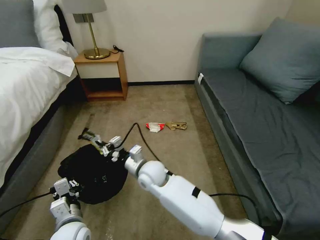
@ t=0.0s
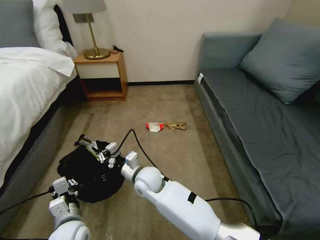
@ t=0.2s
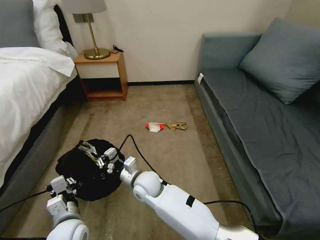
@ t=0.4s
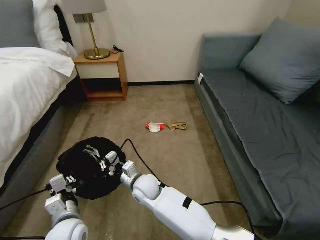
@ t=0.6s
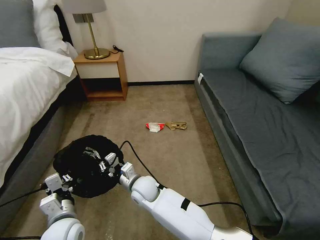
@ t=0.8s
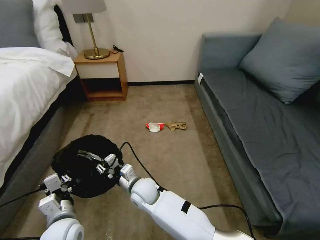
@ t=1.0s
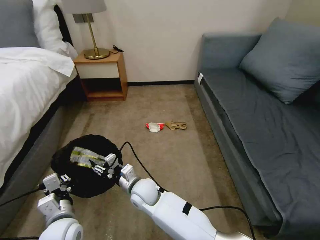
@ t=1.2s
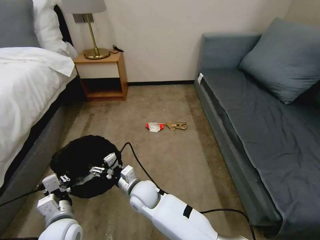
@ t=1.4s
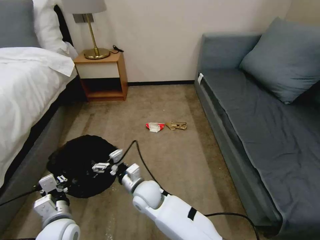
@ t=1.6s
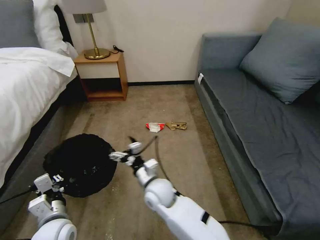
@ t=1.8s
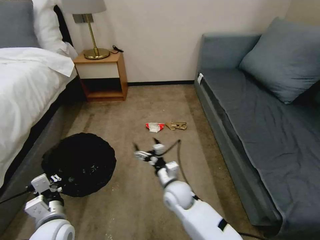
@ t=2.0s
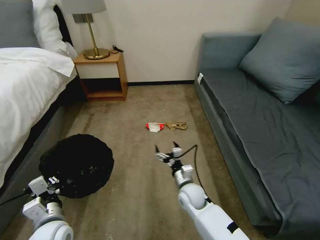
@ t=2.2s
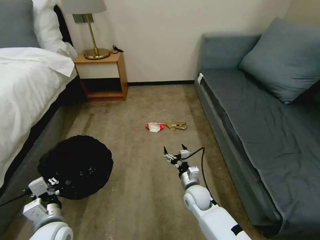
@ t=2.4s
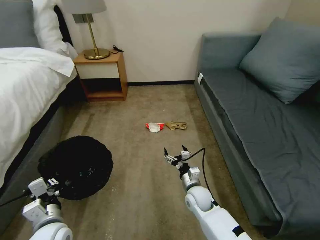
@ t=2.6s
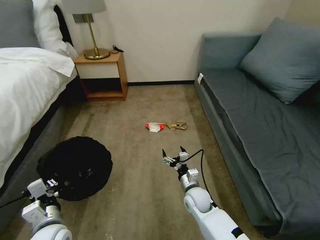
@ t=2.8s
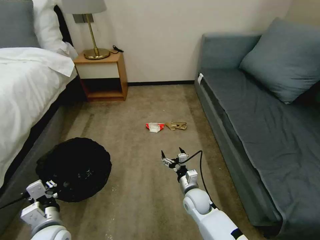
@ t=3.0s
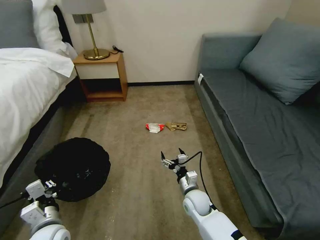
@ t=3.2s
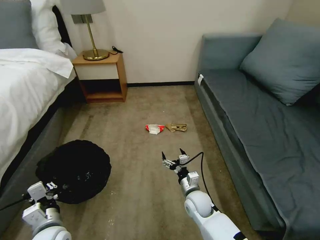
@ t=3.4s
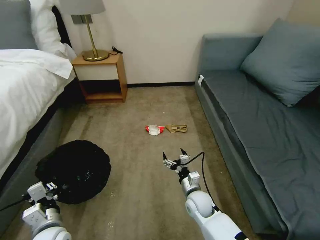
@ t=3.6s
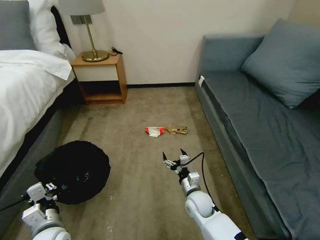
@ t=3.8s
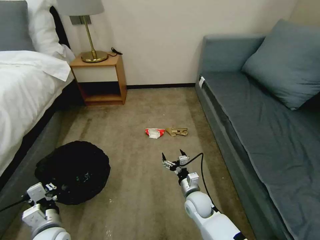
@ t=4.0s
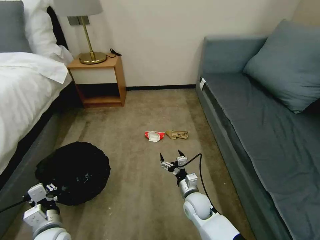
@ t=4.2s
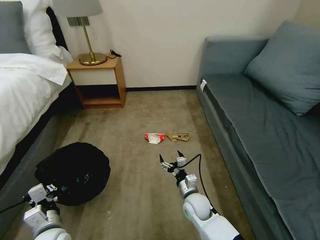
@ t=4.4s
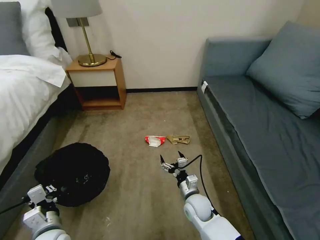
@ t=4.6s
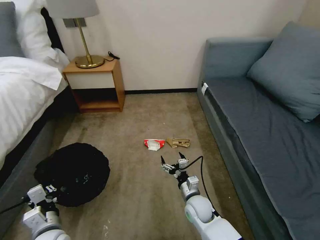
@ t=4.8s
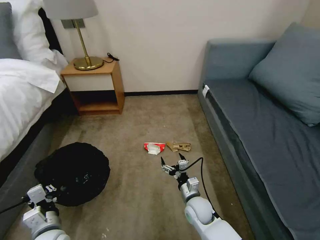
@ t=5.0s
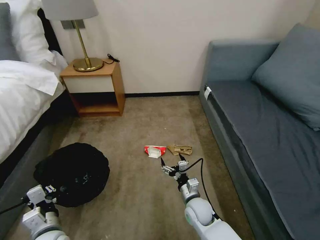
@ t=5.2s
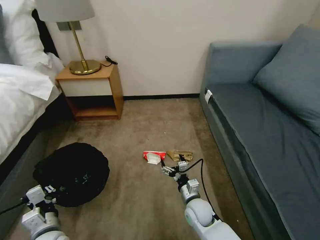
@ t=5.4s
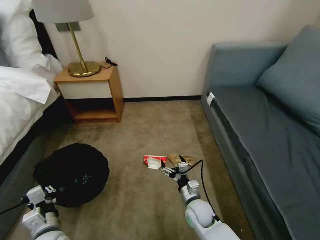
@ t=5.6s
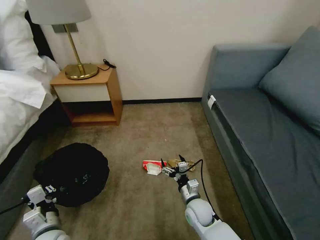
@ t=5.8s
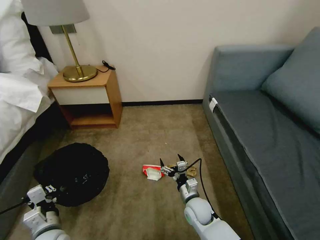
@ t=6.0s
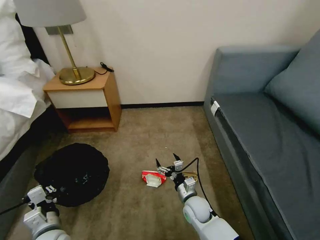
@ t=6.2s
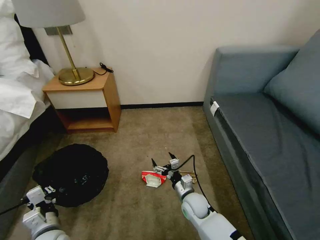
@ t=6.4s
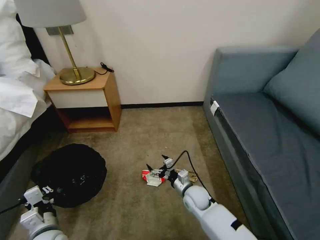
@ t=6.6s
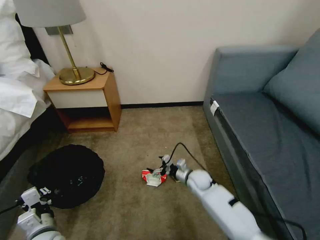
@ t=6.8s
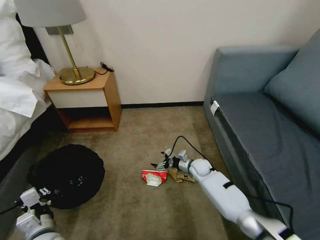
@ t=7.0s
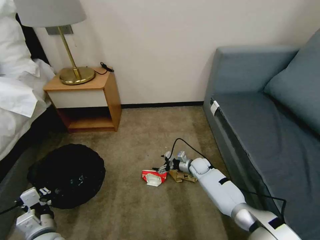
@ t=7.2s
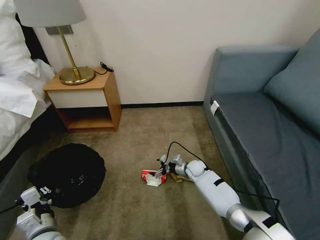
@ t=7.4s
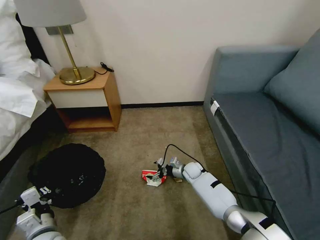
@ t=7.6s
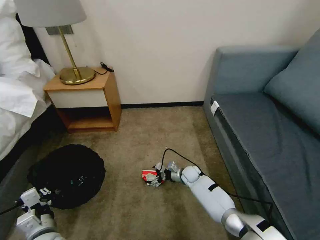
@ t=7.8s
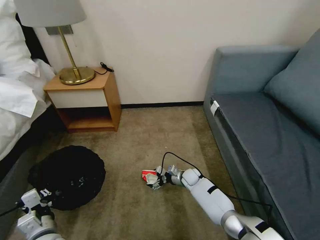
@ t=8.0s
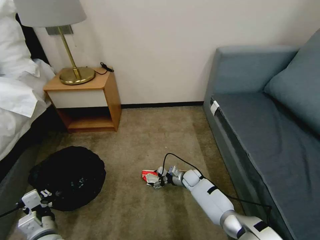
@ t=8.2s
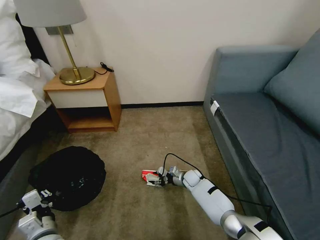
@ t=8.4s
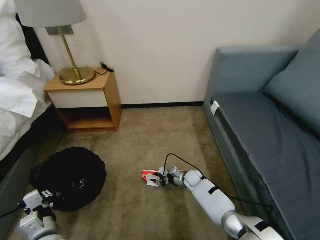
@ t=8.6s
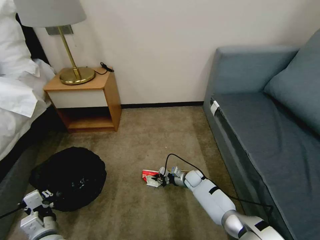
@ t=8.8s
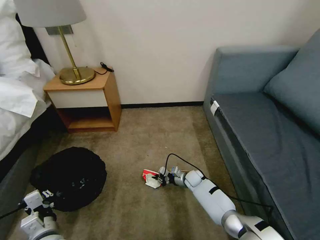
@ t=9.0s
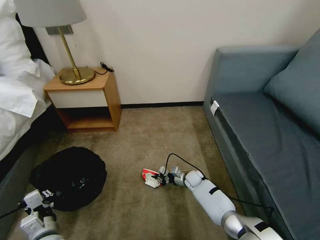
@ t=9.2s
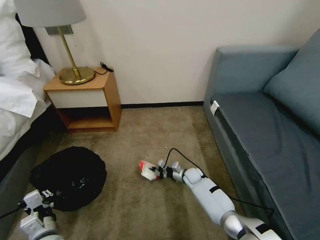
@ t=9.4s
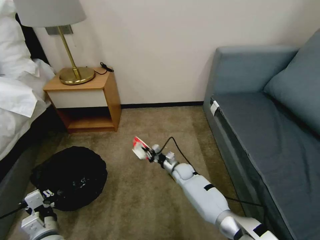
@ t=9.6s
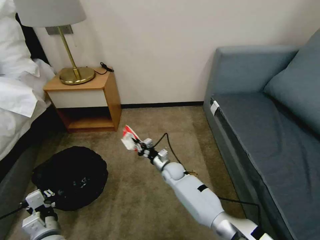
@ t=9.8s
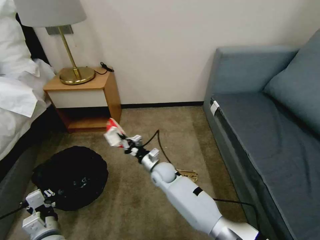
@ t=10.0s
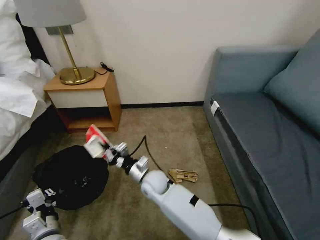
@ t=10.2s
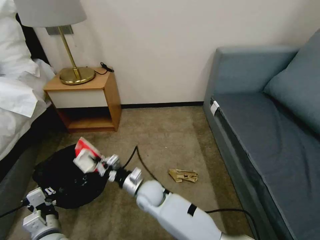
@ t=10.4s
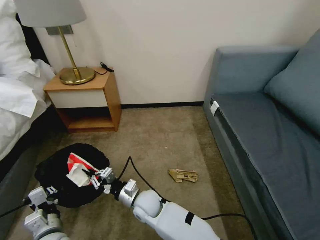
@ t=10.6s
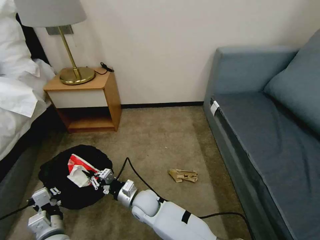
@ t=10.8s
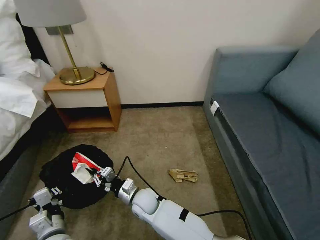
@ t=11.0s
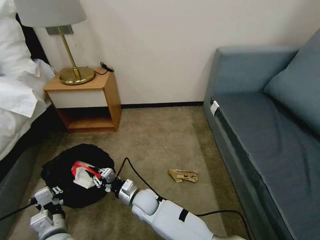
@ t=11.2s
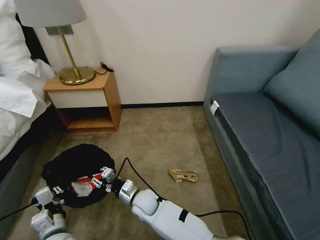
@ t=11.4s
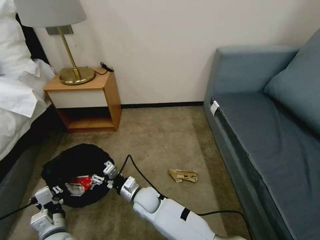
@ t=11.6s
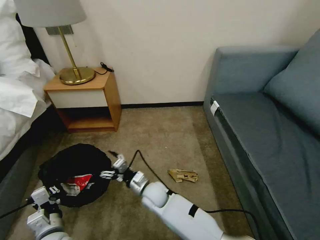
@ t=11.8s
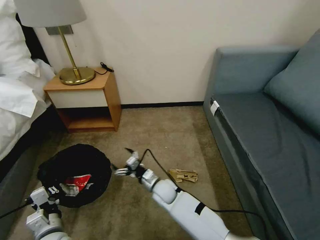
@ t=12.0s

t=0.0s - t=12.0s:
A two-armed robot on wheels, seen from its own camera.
Task of the whole recording: Pick up the trash bin, then pick up the garbage on the floor and place it into the trash bin.
t=0.0s - t=1.6s: The right gripper heads backward, covering roughly 5 cm, and opens its fingers.
t=1.6s - t=3.0s: The right gripper heads to the right and downward, covering about 20 cm.
t=3.0s - t=4.4s: The grippers stay close to where they were, moving slightly.
t=6.0s - t=7.6s: The right gripper is displaced forward by approximately 20 cm.
t=7.6s - t=9.0s: The right gripper closes its fingers.
t=9.0s - t=10.4s: The right gripper heads to the left, upward and backward, covering about 30 cm.
t=10.4s - t=12.0s: The right gripper goes approximately 10 cm to the right and downward, and opens its fingers.

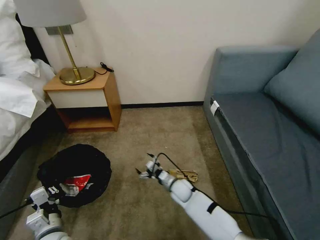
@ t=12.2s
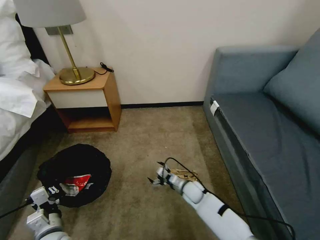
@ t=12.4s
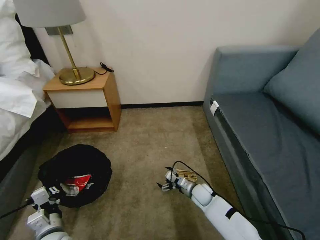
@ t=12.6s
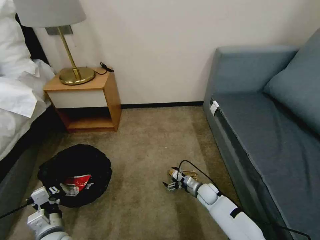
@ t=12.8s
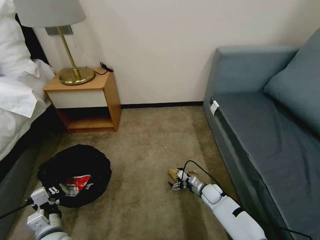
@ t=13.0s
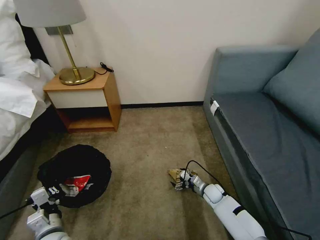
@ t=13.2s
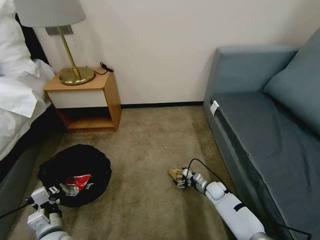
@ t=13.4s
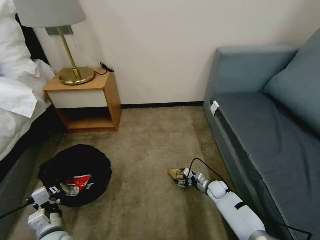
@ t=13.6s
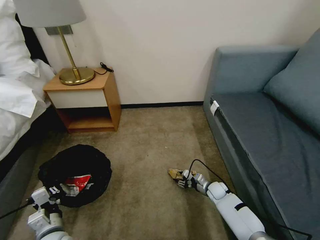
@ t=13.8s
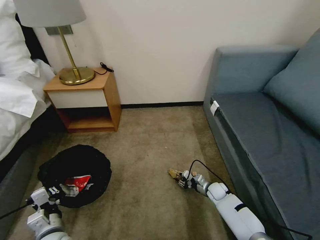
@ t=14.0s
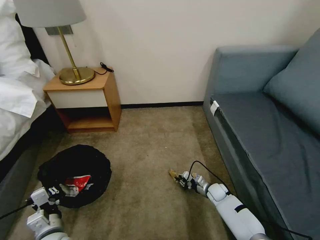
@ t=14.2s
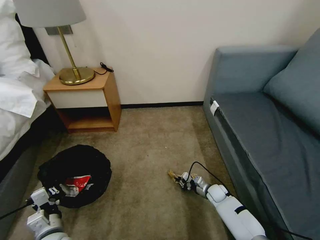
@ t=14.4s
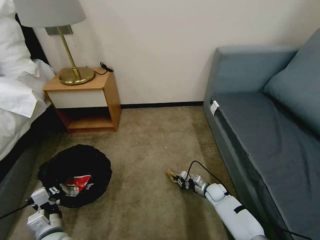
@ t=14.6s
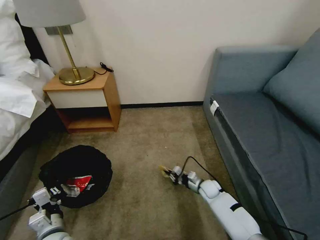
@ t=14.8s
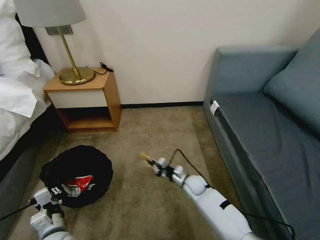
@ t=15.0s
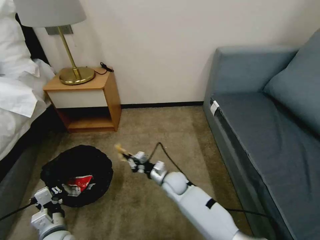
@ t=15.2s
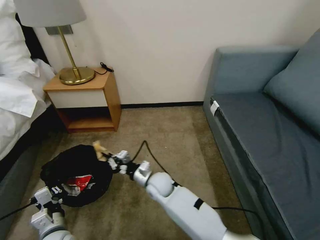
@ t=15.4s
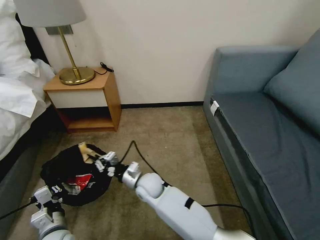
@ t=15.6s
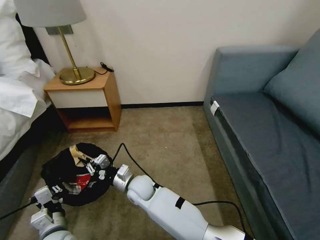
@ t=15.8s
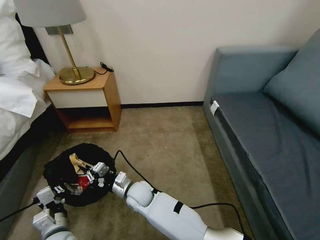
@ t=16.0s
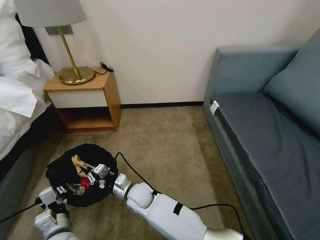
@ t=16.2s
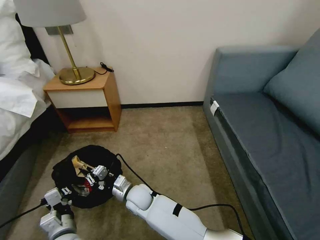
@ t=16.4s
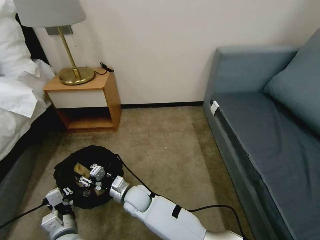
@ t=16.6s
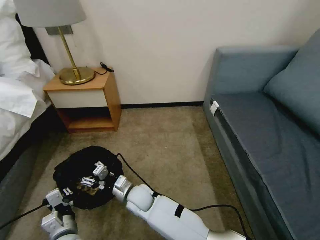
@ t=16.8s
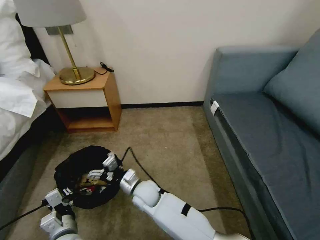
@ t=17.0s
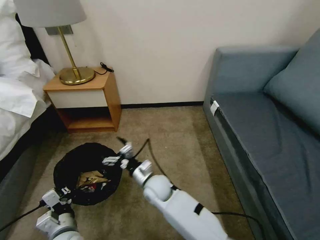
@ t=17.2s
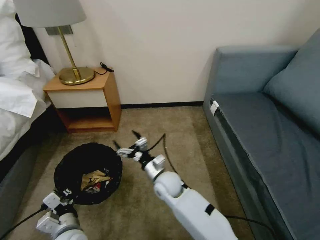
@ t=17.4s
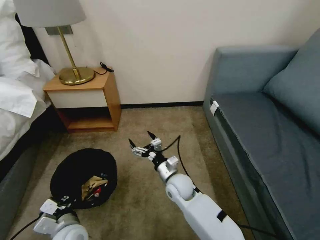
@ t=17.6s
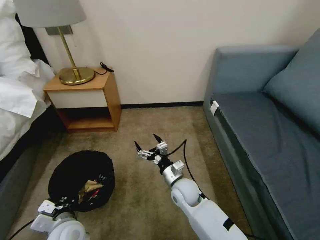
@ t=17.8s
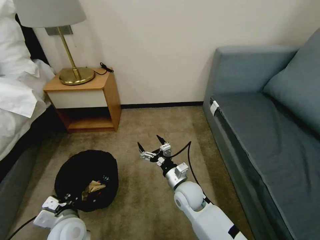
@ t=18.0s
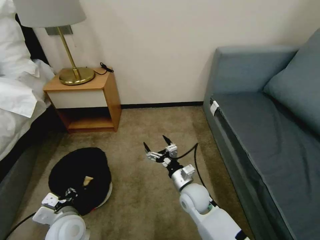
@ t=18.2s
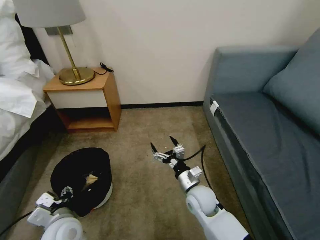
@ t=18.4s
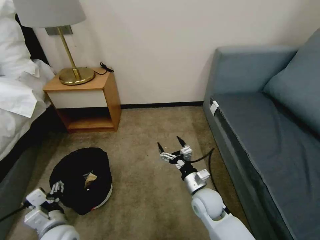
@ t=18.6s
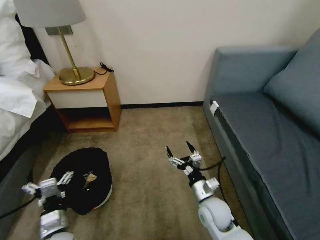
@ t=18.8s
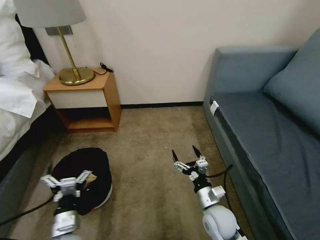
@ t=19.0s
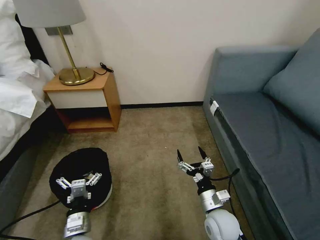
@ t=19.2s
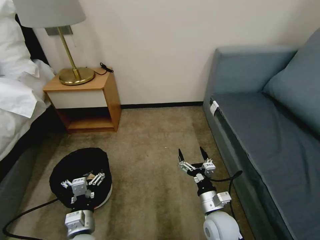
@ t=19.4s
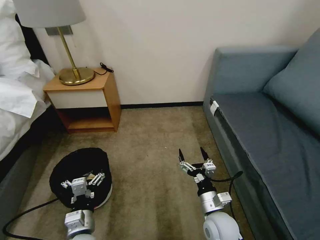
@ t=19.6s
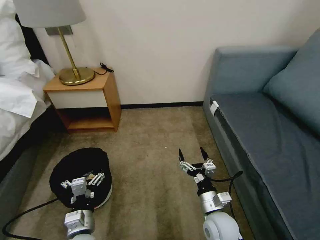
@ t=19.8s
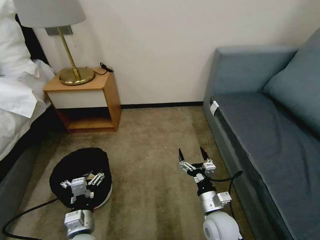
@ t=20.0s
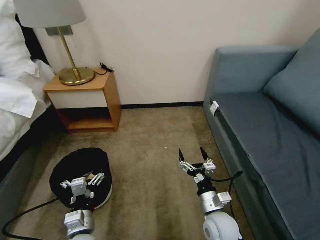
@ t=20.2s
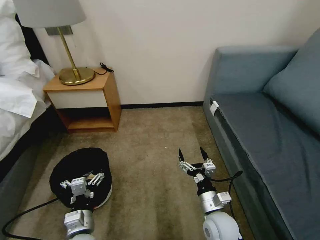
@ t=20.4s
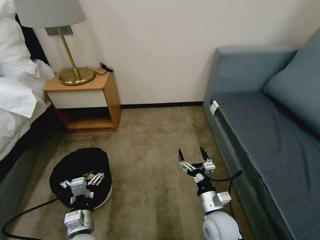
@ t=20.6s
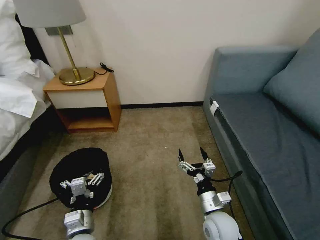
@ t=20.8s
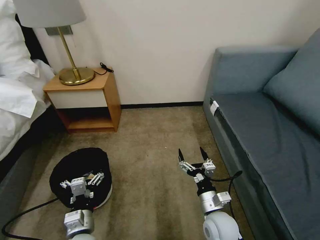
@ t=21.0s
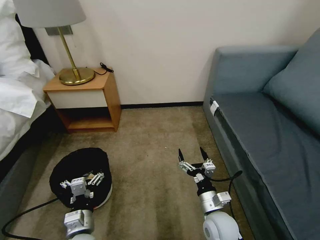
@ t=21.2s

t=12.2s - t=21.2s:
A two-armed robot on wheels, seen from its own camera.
Task of the whole recording: Pick up the trash bin, then pick up the garbage on the floor and place it into the trash bin.
t=12.2s - t=13.8s: The right gripper moves to the right, some 20 cm, and closes.
t=13.8s - t=15.2s: The right gripper goes roughly 25 cm to the left and upward, and closes its fingers.
t=15.2s - t=16.6s: The right gripper shifts some 15 cm to the left and backward.
t=16.6s - t=18.2s: The left gripper moves some 5 cm. The right gripper travels to the right by some 20 cm, and opens its fingers.
t=18.2s - t=19.8s: The left gripper changes place by approximately 5 cm, and opens. The right gripper moves backward and to the right, approximately 10 cm.
t=19.8s - t=21.2s: Both grippers stay about where they are.
